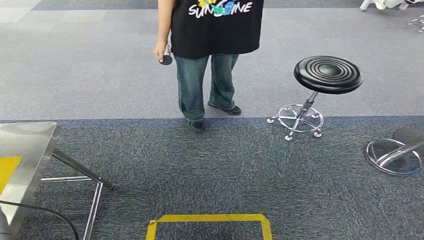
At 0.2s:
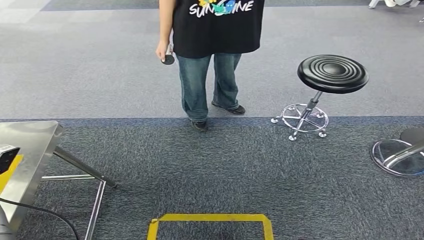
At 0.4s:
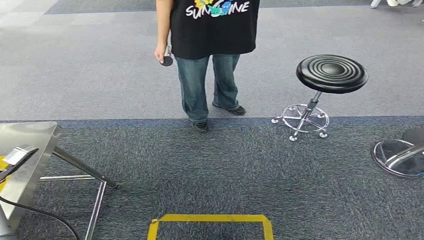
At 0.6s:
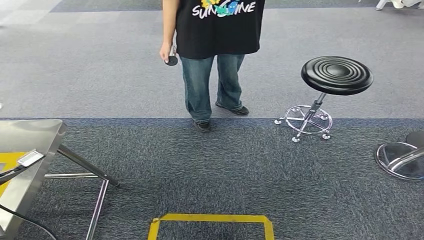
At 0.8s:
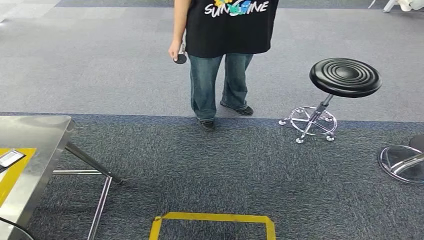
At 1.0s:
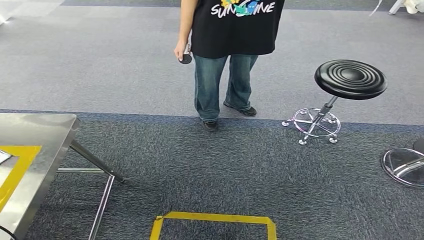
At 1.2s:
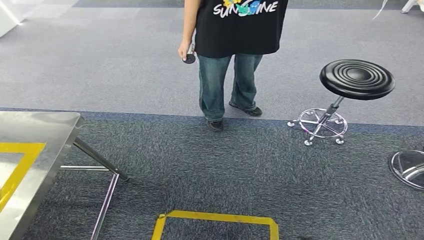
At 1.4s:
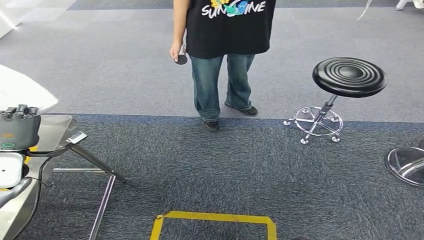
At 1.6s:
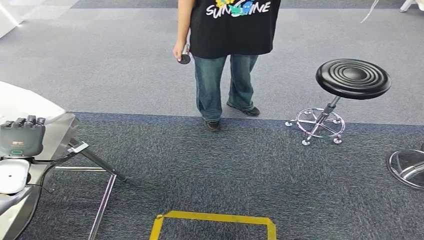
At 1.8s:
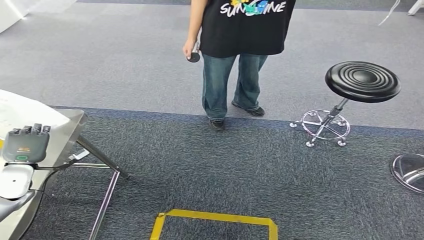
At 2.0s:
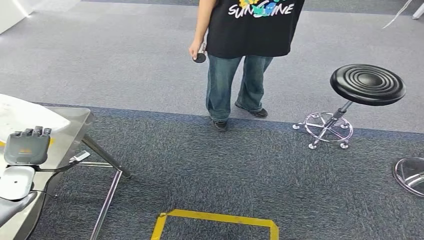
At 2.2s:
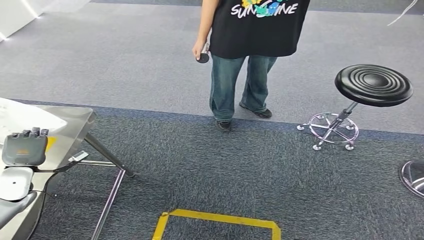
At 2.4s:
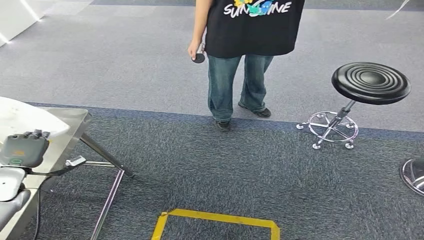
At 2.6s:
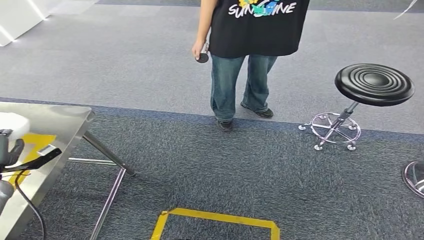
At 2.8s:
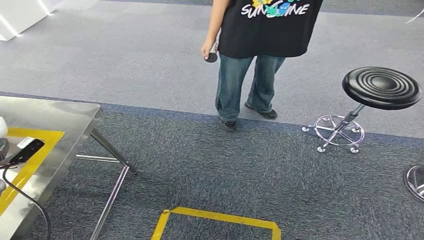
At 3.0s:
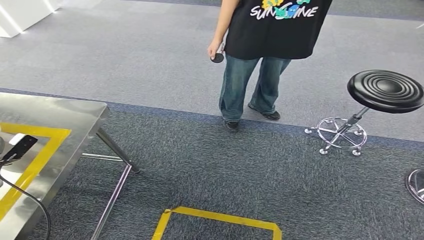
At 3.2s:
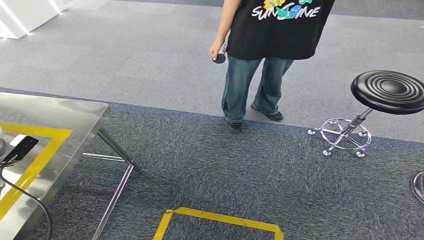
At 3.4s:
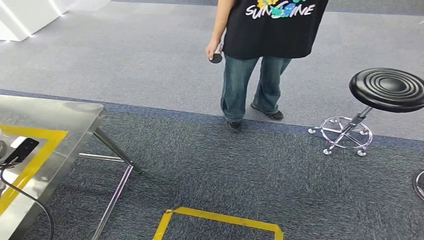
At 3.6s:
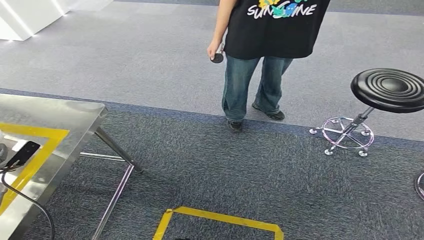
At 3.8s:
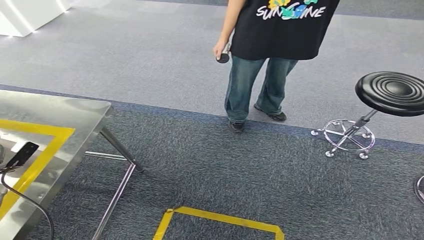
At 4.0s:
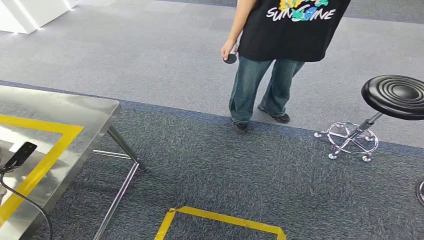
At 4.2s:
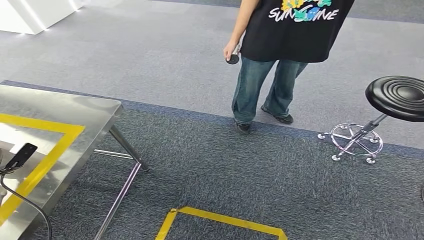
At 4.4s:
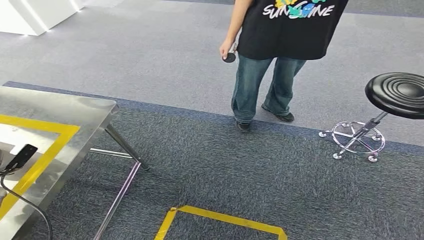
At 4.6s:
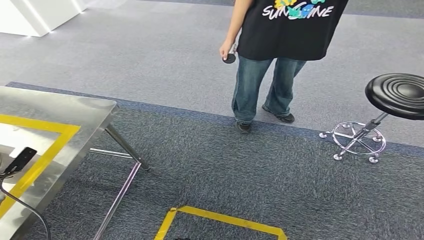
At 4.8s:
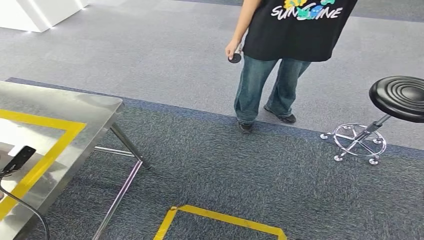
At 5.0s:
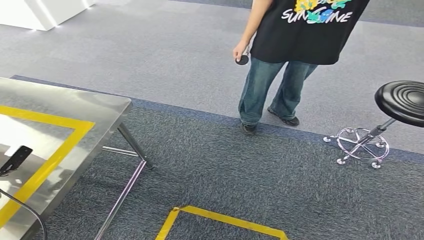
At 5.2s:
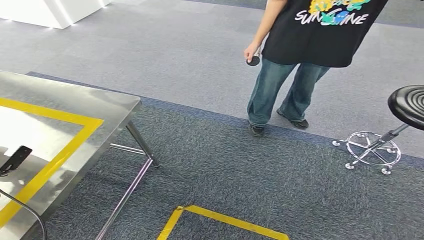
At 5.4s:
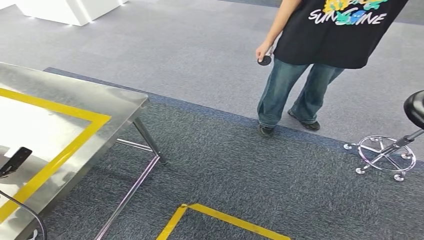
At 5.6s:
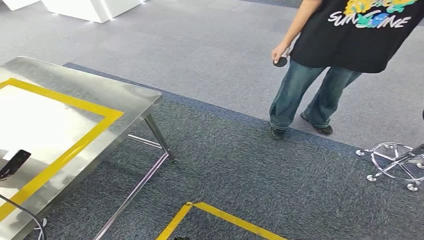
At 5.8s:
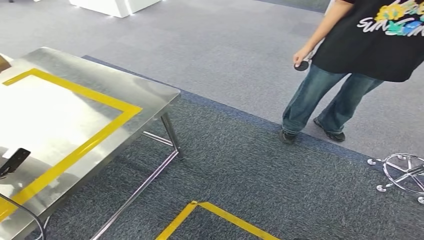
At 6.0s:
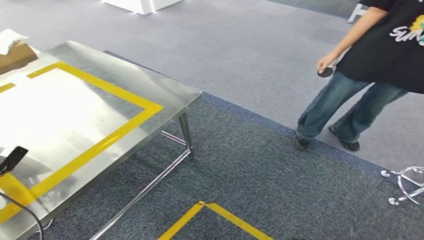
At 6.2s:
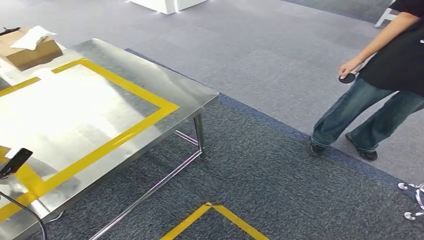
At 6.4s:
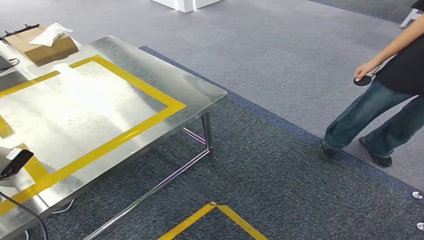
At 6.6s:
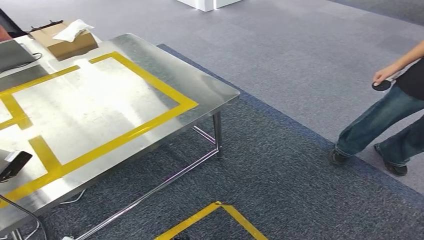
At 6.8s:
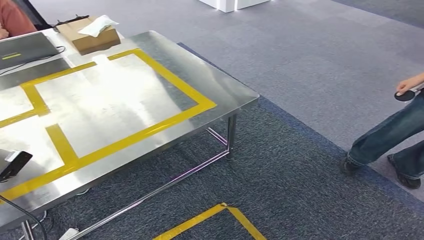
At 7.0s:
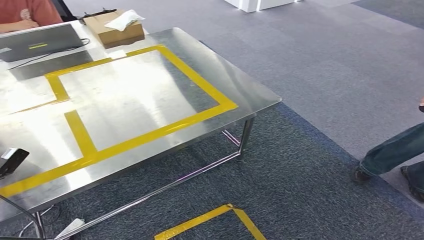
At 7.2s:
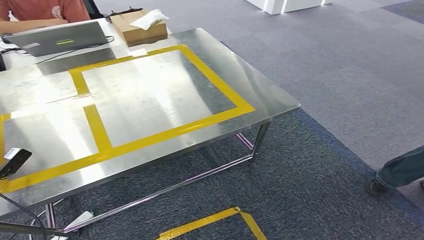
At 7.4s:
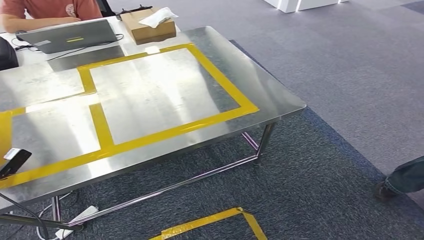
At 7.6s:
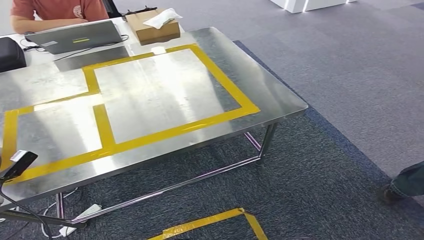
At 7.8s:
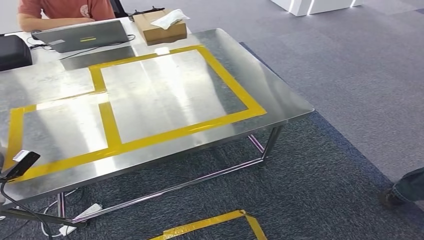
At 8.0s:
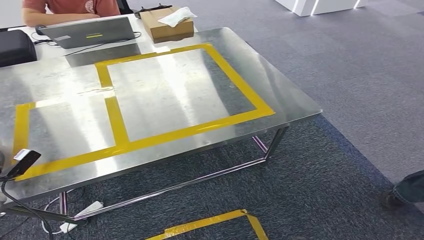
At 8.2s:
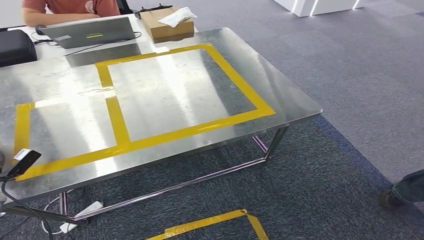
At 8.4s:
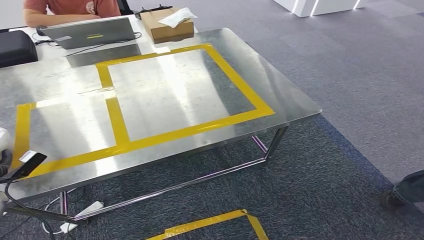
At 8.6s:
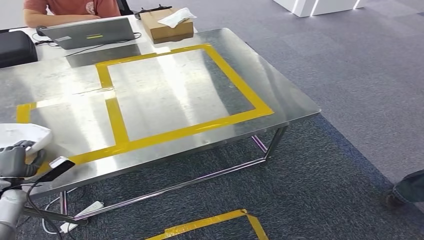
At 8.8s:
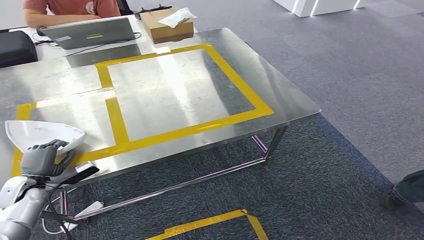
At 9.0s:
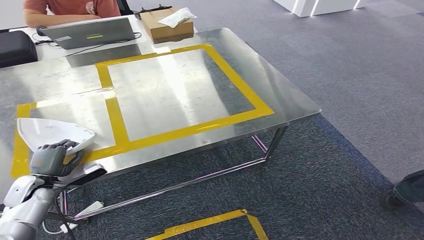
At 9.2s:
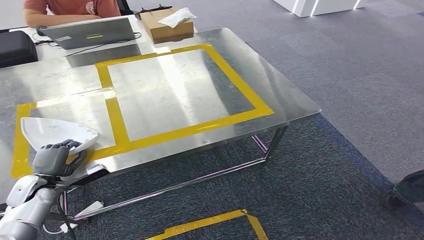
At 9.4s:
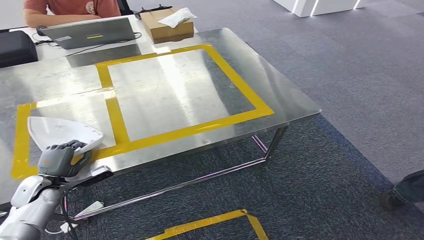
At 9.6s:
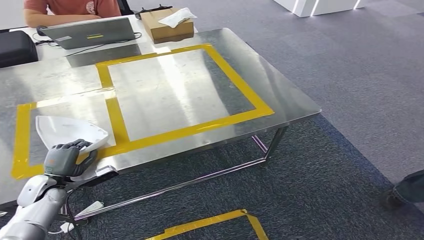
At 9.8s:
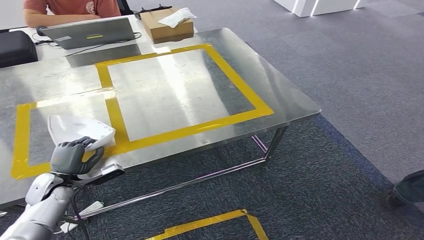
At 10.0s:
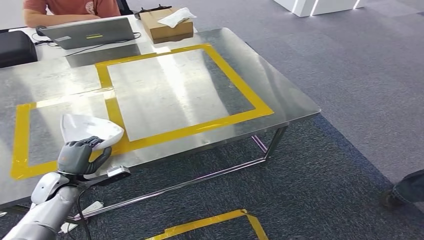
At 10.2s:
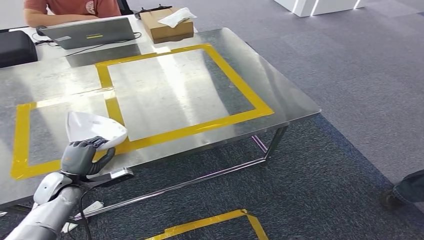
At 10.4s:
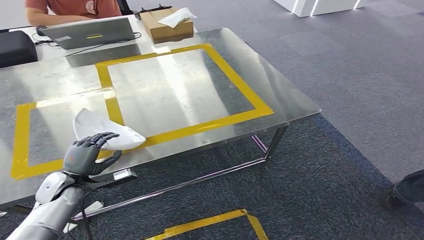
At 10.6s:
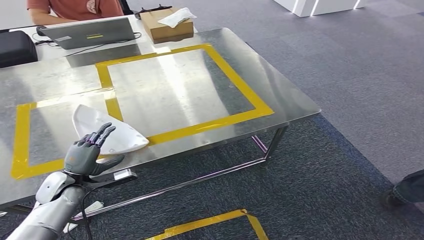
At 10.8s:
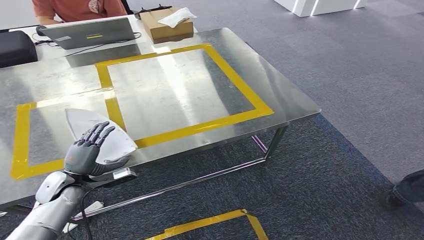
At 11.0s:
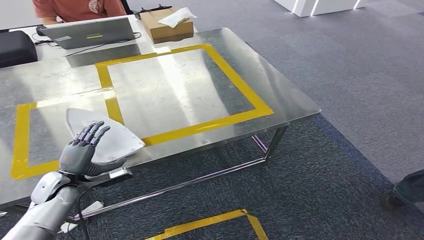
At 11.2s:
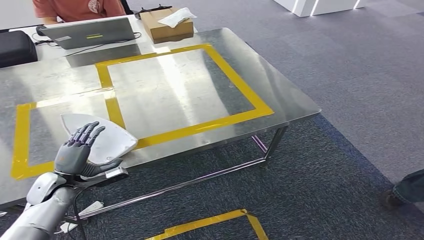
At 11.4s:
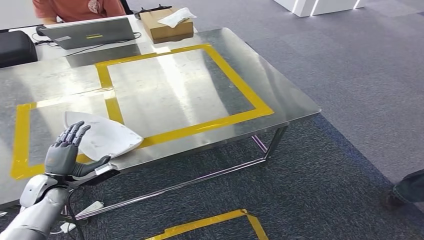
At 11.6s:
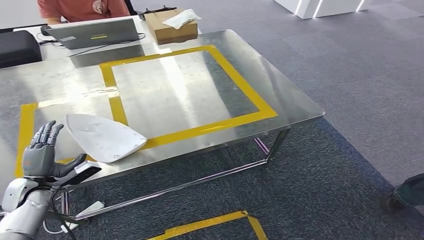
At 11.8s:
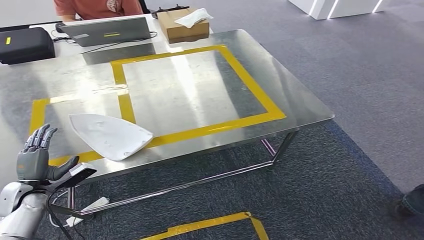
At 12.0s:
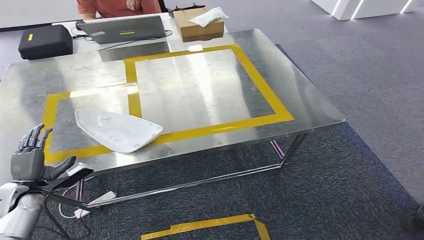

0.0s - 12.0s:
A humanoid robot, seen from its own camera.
Step, 0.0s - 7.8s: Move the small component to the workbench.
9.0s - 10.4s: The left hand heads to the right, covering some 10 cm.

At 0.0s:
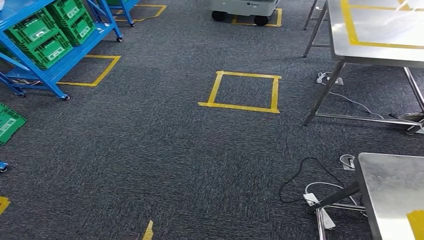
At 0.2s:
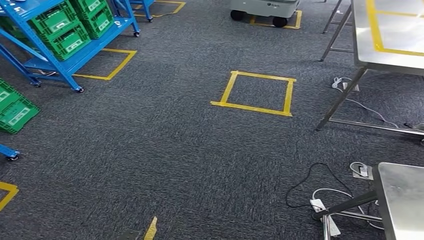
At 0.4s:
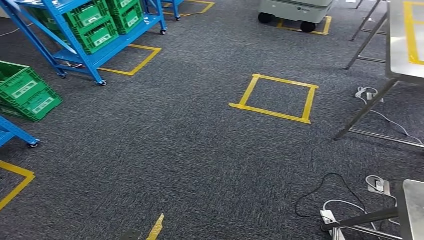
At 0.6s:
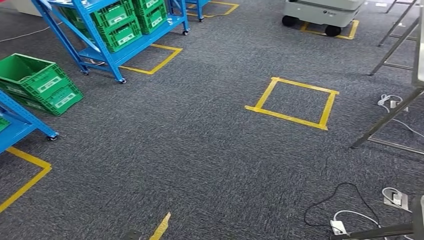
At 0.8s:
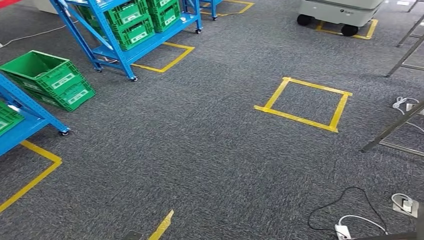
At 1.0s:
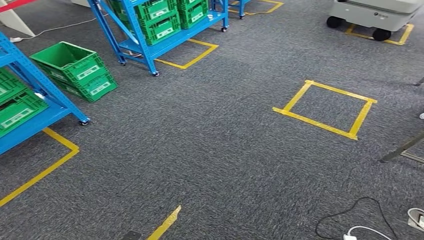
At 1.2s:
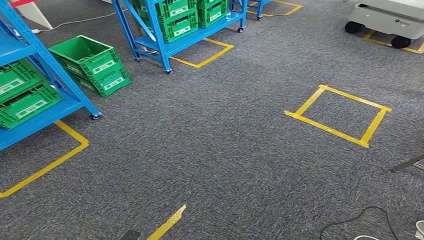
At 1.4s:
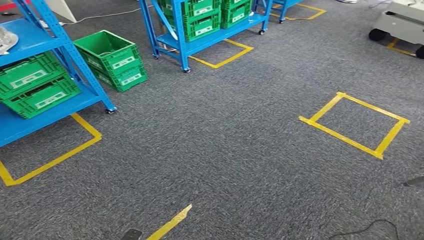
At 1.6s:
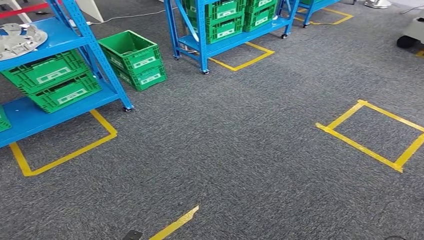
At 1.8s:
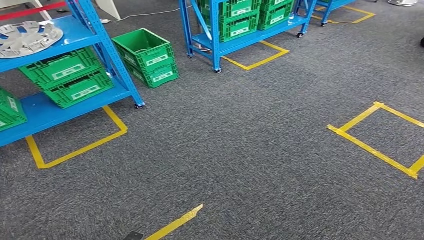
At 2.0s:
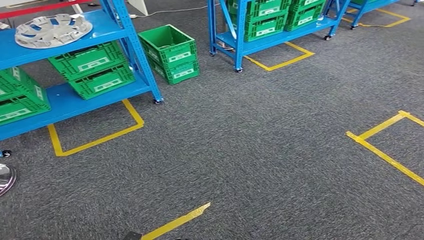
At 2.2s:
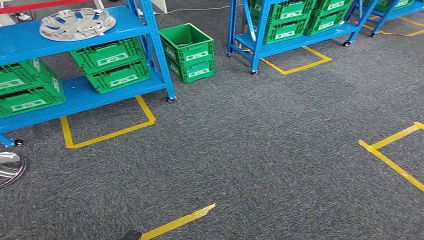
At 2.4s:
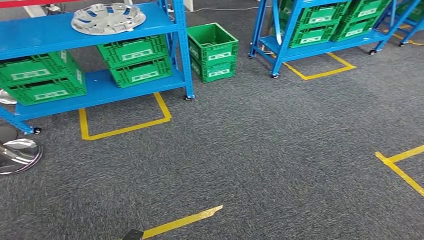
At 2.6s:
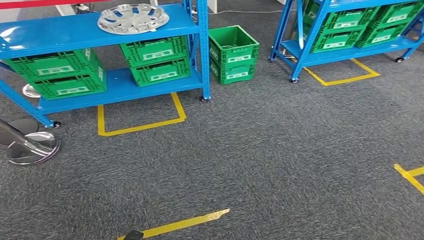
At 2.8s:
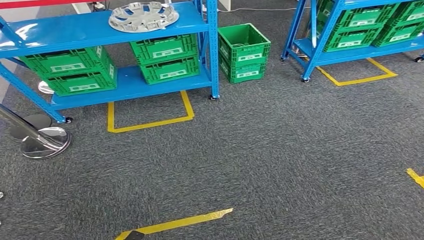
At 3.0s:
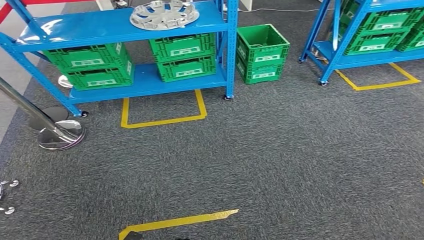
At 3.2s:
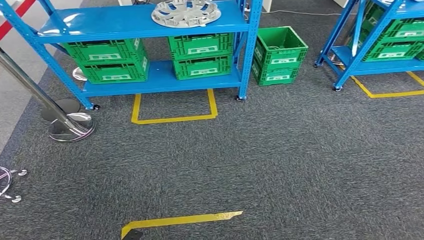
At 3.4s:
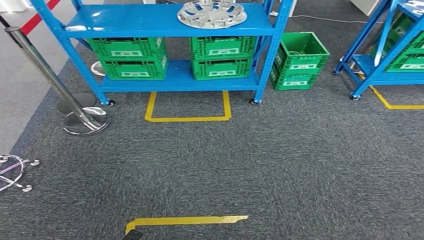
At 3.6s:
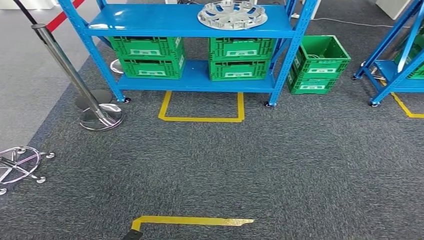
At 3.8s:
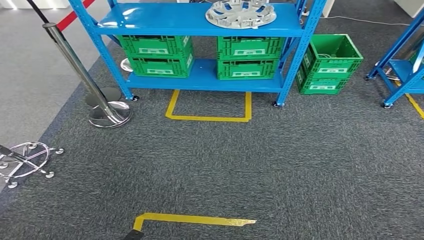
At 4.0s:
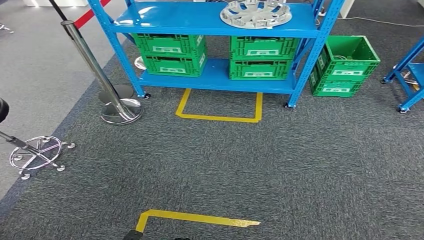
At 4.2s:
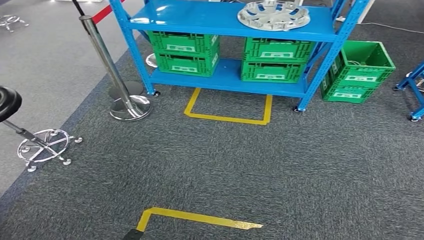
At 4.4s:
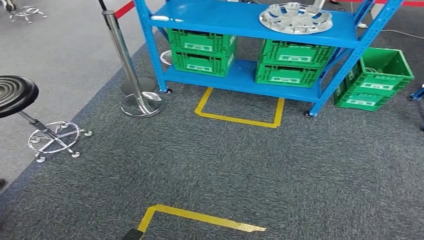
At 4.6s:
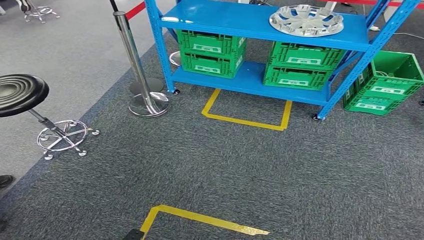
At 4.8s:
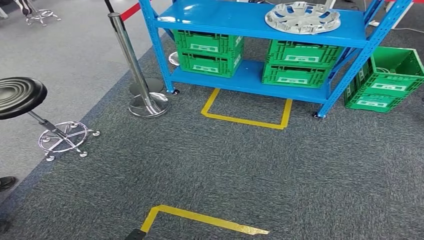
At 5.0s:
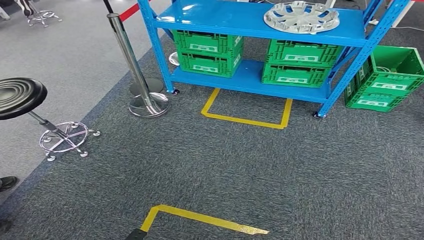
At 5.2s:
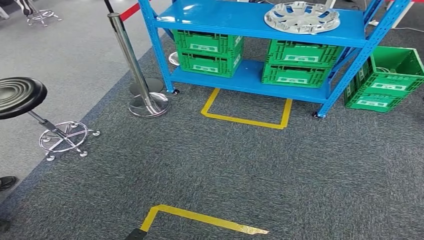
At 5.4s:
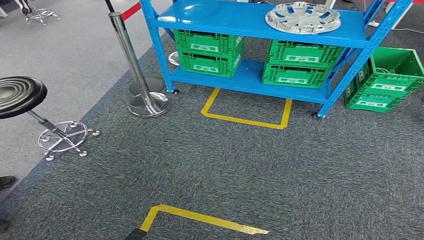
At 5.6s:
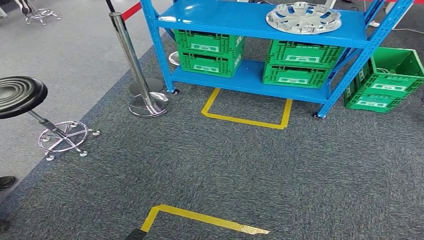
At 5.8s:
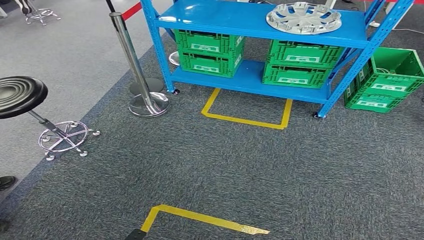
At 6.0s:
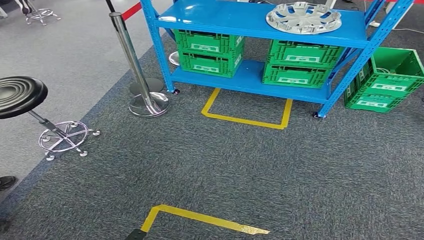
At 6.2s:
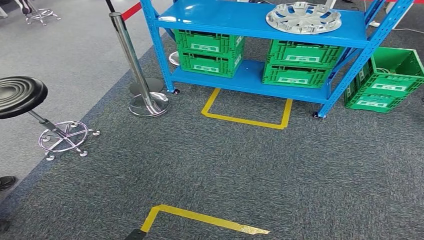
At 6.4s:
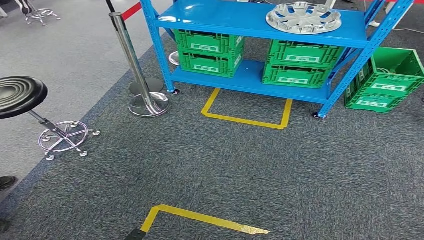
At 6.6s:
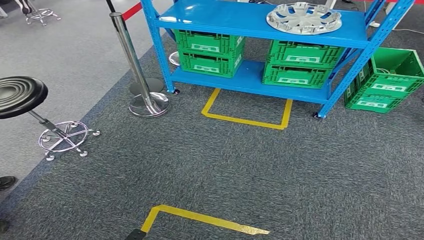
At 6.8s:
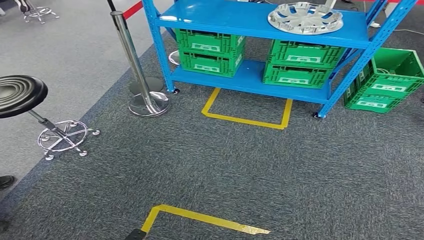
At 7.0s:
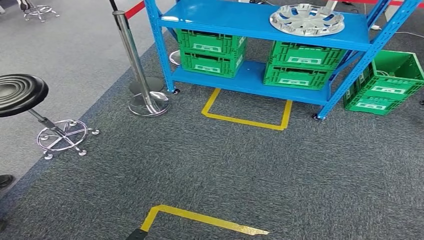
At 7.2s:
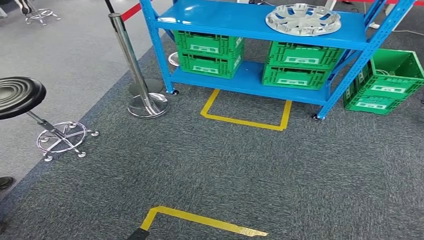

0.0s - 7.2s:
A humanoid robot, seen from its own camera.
4.4s - 7.2s: The hands stay close to where they were, moving slightly.
